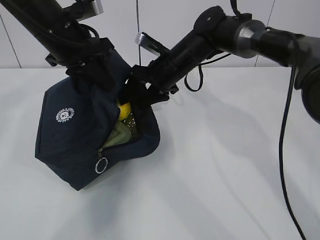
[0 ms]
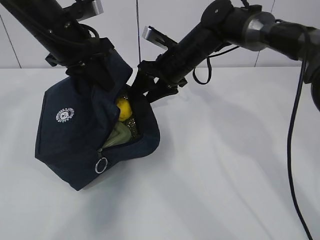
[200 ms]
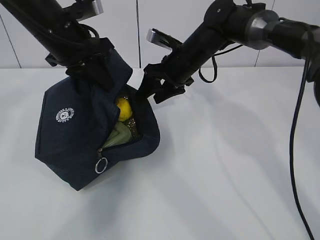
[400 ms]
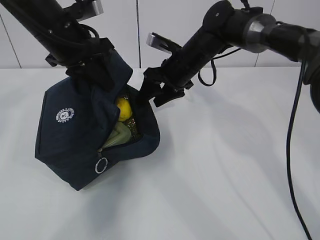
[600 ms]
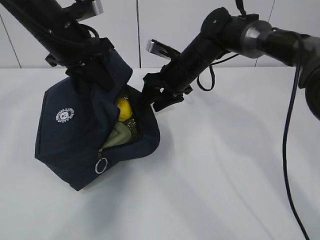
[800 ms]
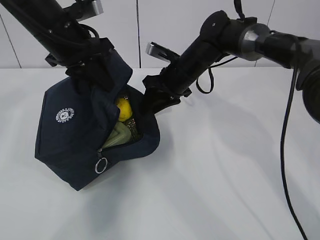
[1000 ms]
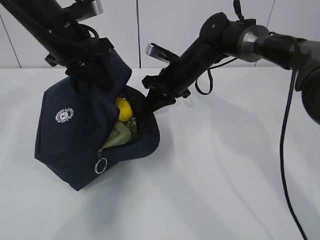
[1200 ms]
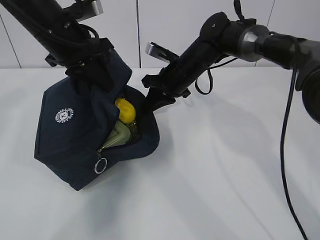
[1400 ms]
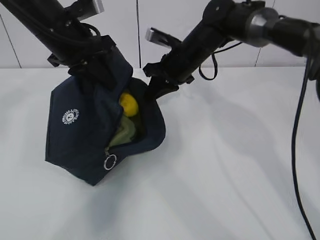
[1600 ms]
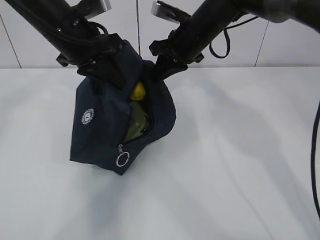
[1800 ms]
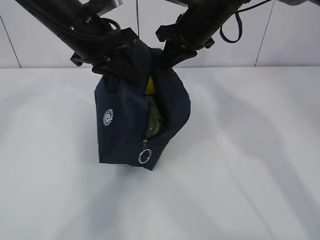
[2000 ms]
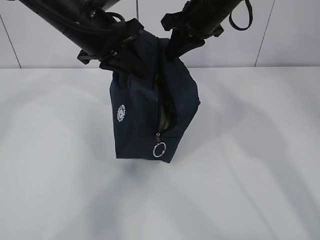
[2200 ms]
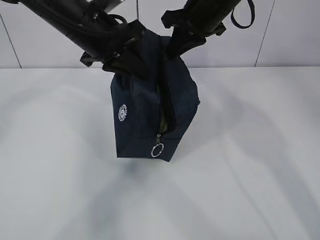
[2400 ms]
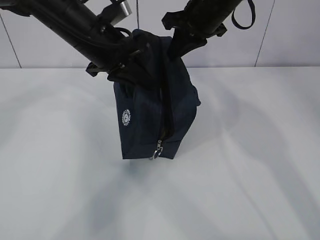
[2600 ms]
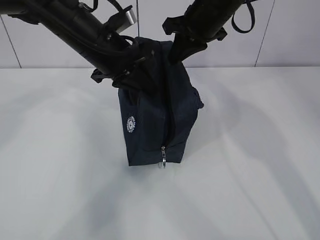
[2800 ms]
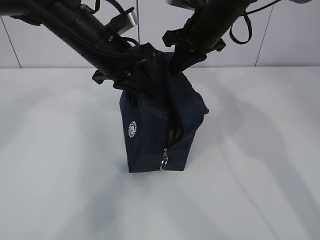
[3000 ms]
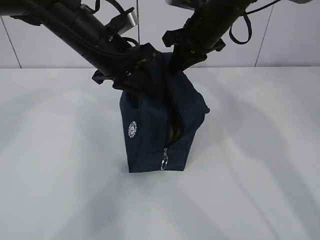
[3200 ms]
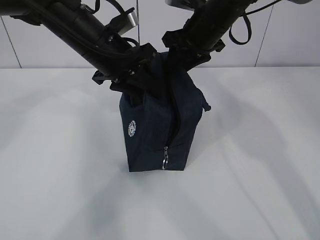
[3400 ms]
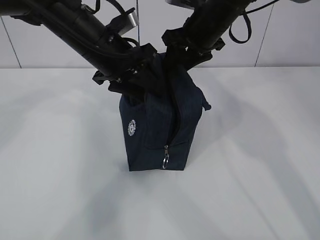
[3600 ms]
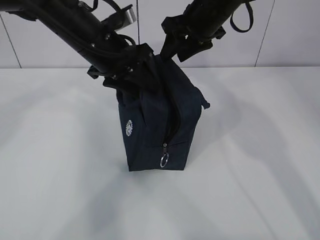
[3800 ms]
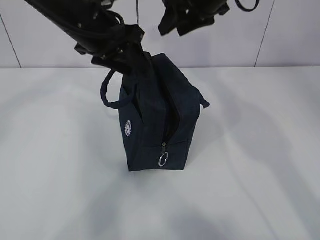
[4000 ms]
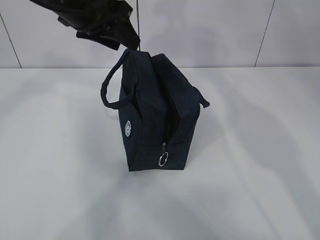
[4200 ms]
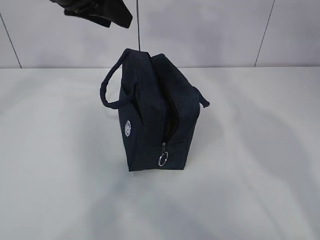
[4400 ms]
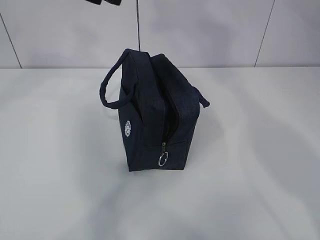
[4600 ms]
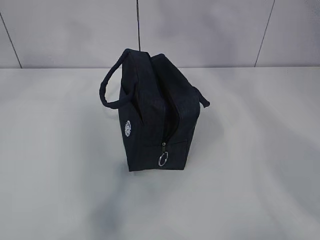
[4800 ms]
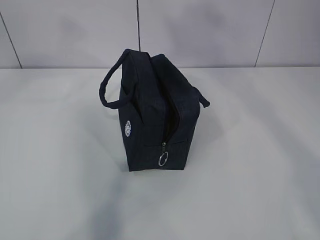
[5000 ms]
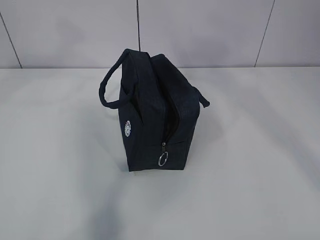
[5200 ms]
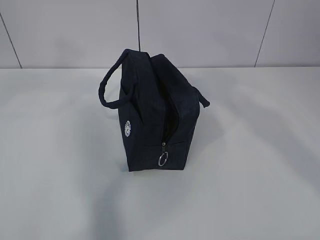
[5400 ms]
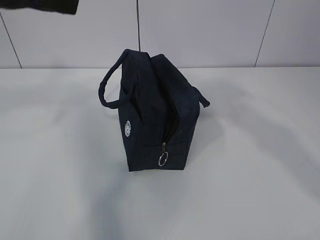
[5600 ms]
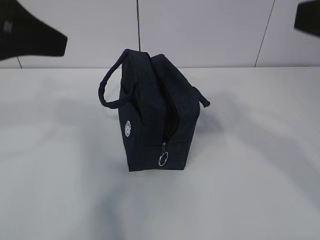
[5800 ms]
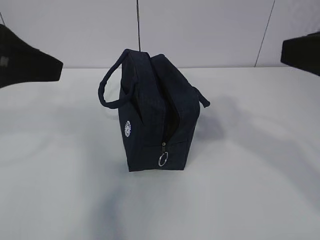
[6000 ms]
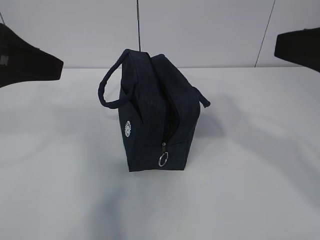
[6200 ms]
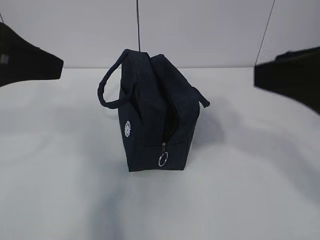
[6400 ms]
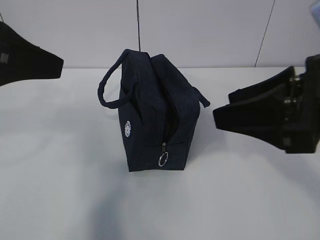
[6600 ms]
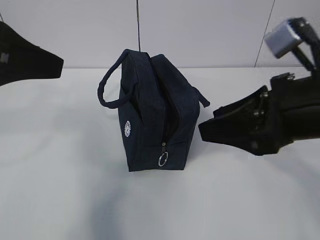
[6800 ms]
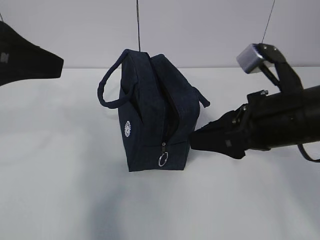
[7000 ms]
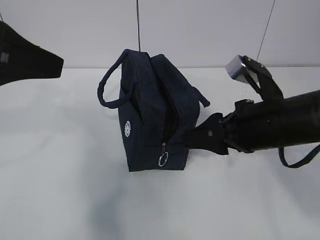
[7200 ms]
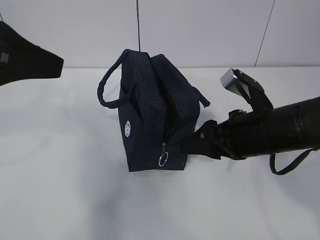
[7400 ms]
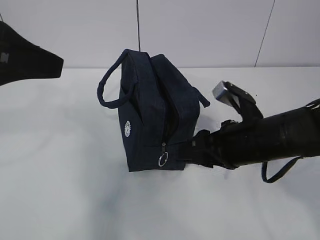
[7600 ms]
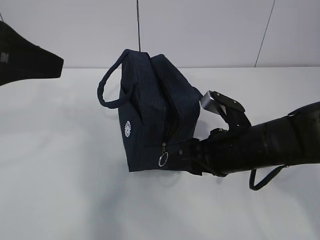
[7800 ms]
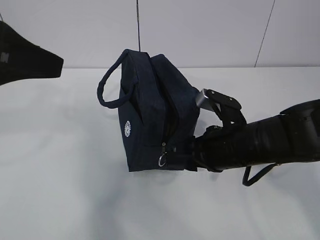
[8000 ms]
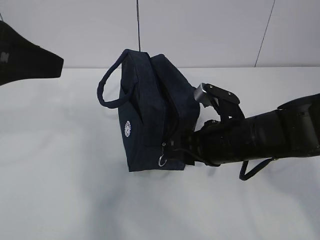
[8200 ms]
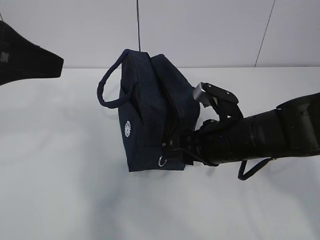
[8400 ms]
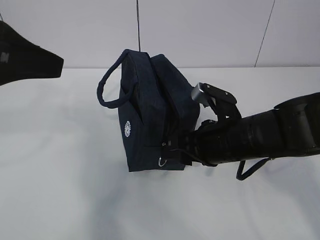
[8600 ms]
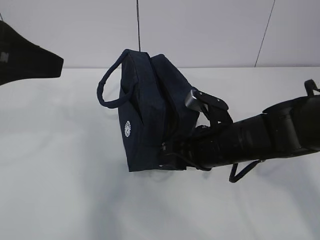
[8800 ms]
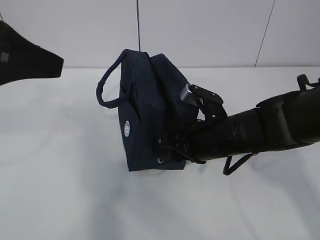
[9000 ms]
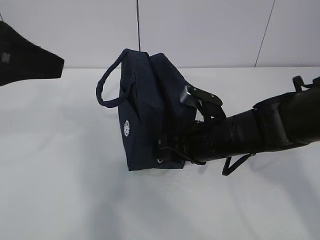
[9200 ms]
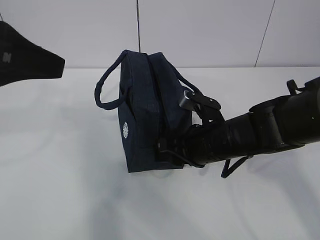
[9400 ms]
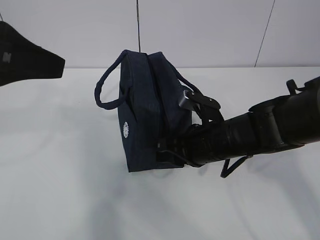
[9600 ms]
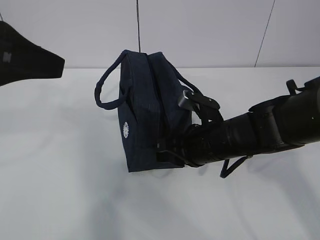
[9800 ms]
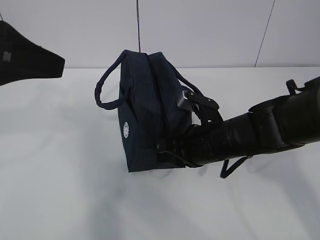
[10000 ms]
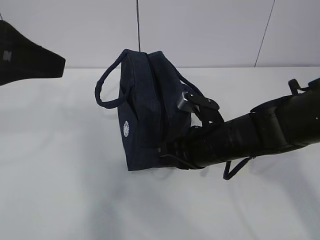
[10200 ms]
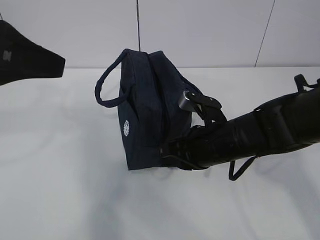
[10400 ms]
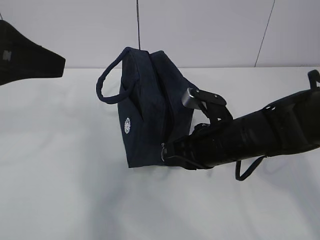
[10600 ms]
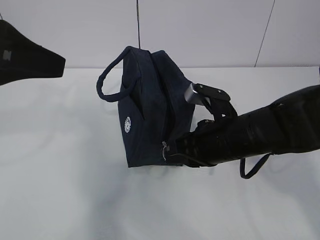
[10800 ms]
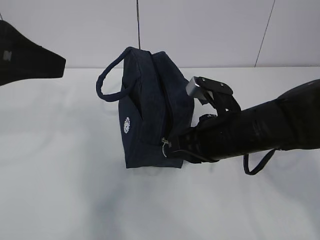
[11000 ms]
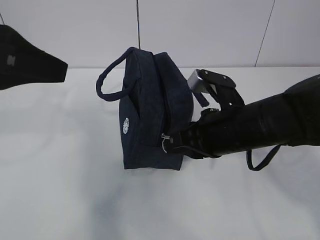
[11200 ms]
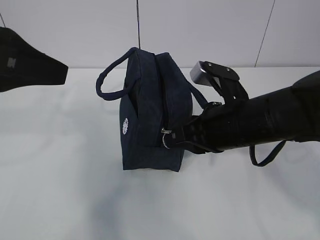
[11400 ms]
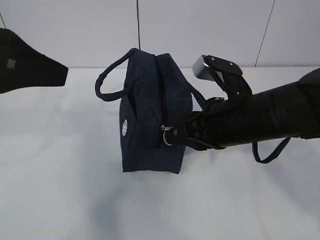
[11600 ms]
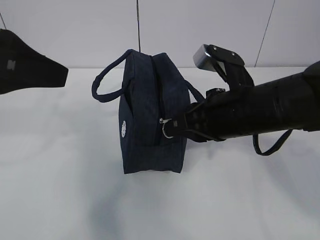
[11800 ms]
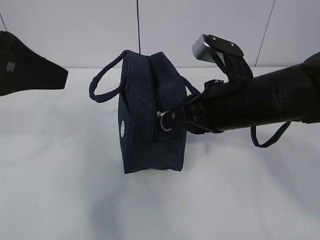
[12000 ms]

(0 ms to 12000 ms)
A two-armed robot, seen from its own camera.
Step, 0 ms - 9800 ms: Grab the lunch bag with your left hand.
0 ms - 1600 ms: The right gripper closes.
1600 ms - 3000 ms: The right gripper heads upward, covering about 5 cm. The left gripper is displaced to the right by approximately 5 cm.
3000 ms - 4400 ms: The right gripper goes approximately 20 cm upward, and opens up. Meanwhile the left gripper heads upward, covering approximately 10 cm, and opens up.
4400 ms - 6000 ms: The right gripper is displaced backward and downward by some 25 cm. Meanwhile the left gripper moves backward and to the left, some 15 cm.
6000 ms - 7600 ms: The right gripper travels downward and forward by some 20 cm.
7600 ms - 9000 ms: The right gripper moves roughly 5 cm.
9000 ms - 10400 ms: The right gripper closes its fingers.
10400 ms - 12000 ms: The right gripper goes about 10 cm upward.

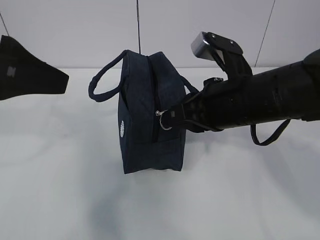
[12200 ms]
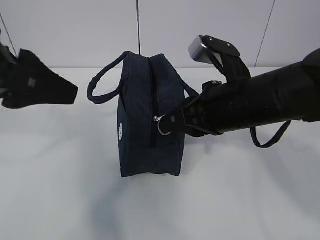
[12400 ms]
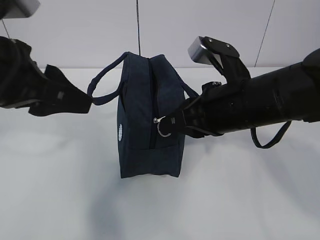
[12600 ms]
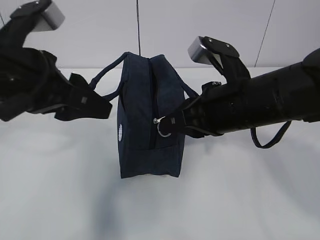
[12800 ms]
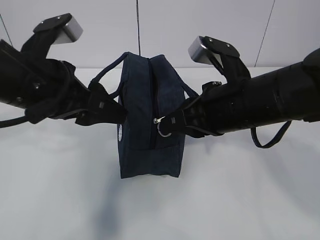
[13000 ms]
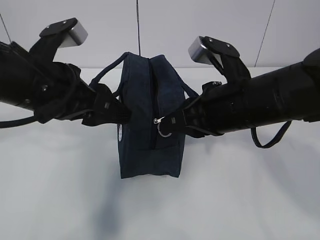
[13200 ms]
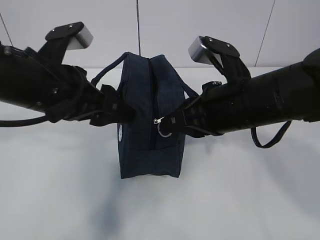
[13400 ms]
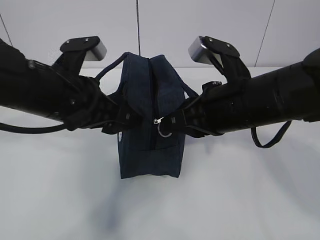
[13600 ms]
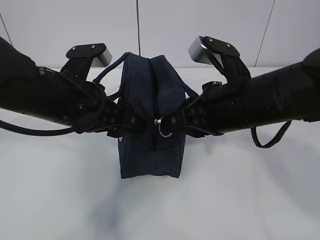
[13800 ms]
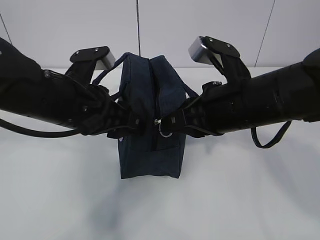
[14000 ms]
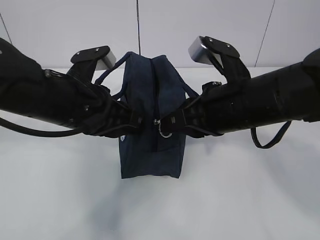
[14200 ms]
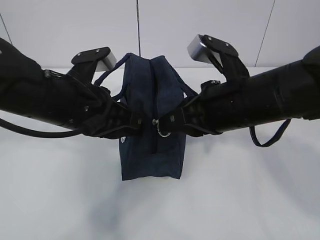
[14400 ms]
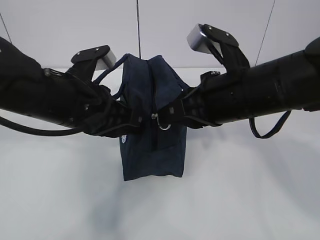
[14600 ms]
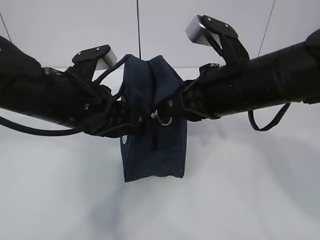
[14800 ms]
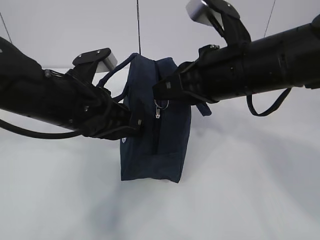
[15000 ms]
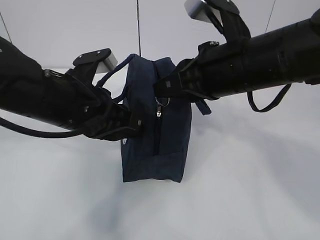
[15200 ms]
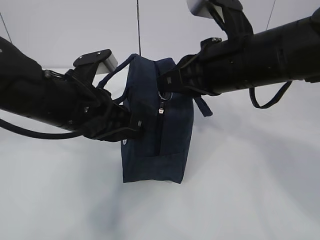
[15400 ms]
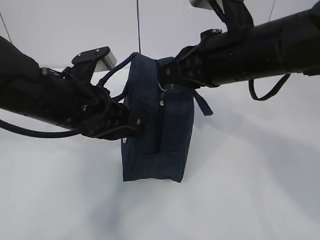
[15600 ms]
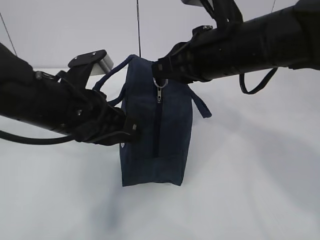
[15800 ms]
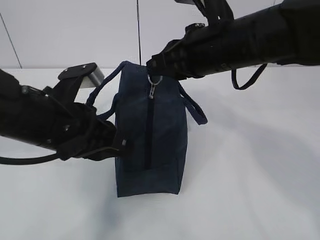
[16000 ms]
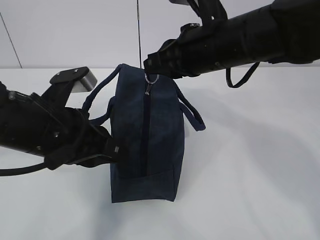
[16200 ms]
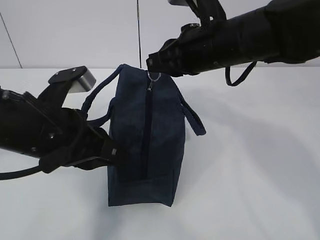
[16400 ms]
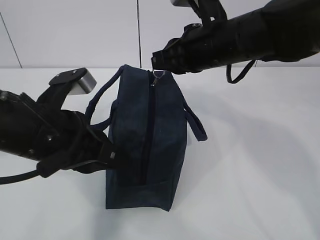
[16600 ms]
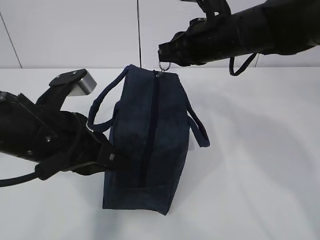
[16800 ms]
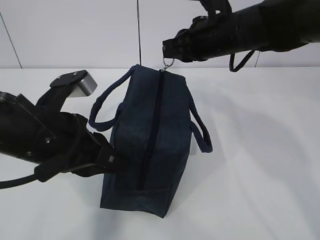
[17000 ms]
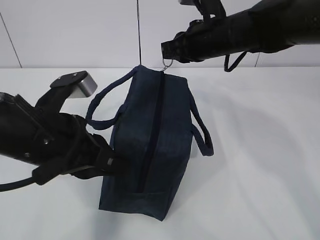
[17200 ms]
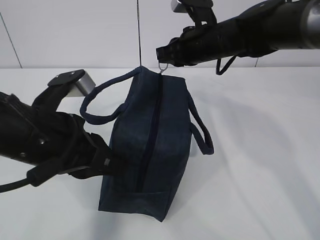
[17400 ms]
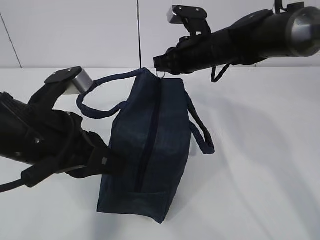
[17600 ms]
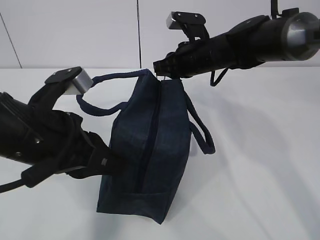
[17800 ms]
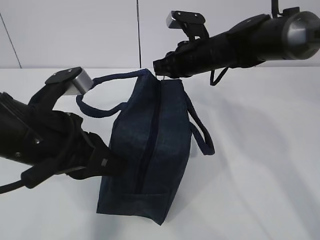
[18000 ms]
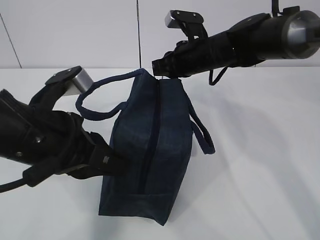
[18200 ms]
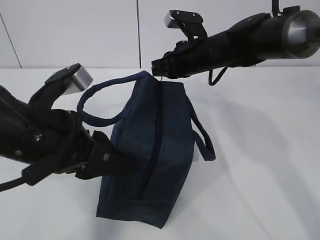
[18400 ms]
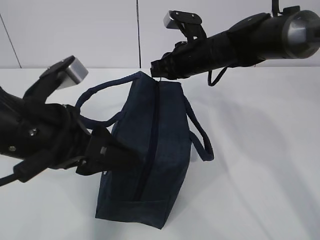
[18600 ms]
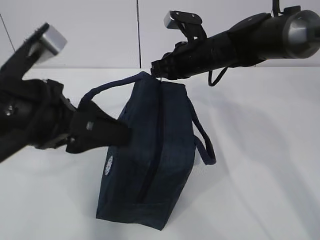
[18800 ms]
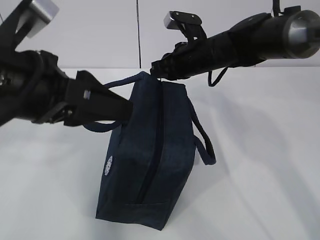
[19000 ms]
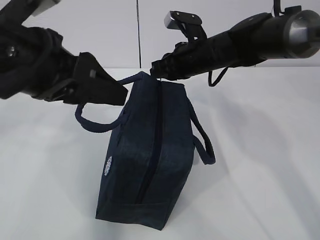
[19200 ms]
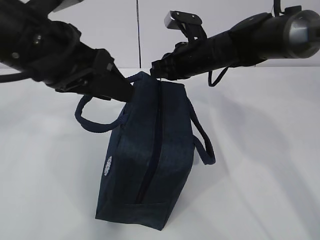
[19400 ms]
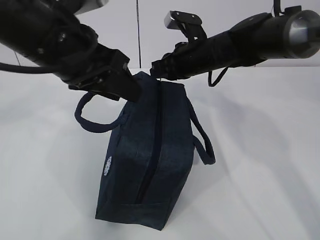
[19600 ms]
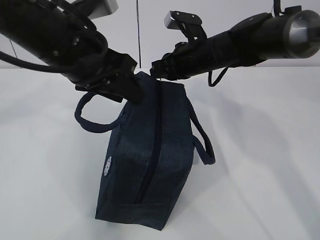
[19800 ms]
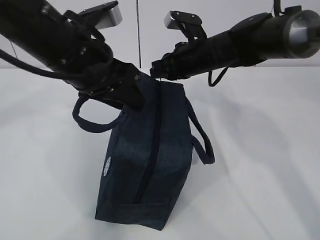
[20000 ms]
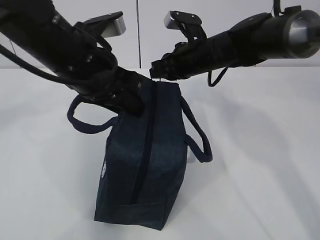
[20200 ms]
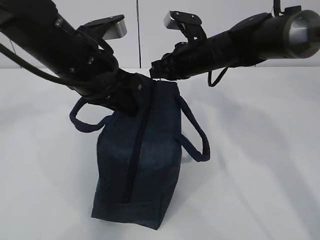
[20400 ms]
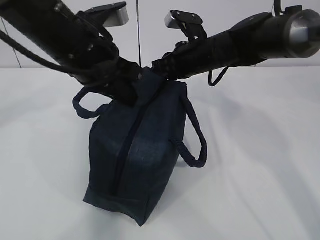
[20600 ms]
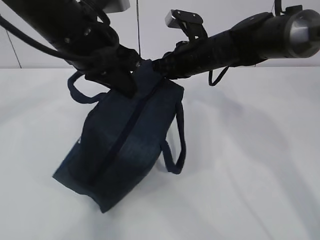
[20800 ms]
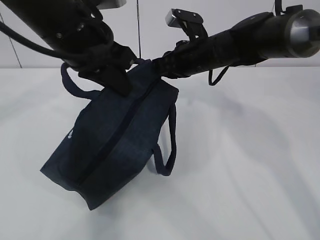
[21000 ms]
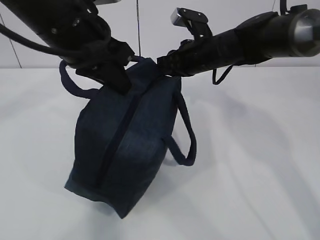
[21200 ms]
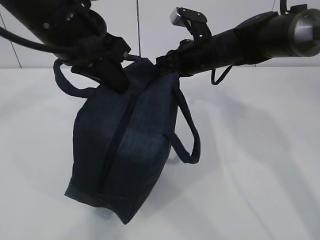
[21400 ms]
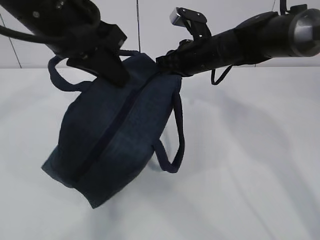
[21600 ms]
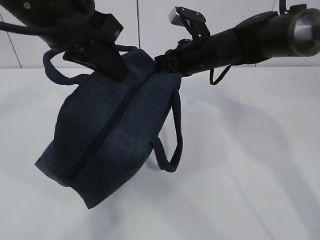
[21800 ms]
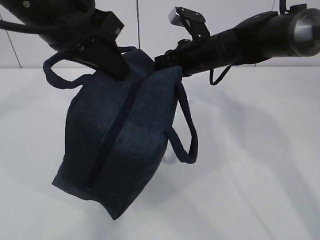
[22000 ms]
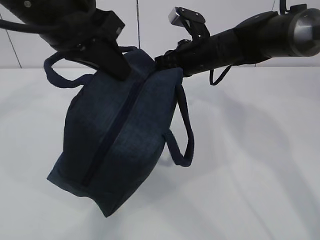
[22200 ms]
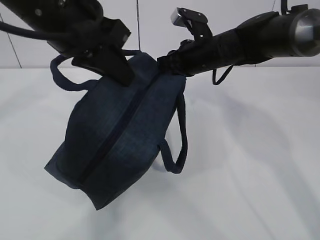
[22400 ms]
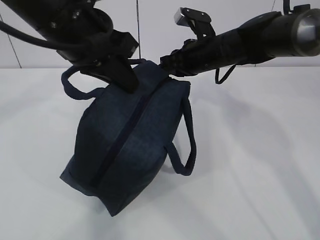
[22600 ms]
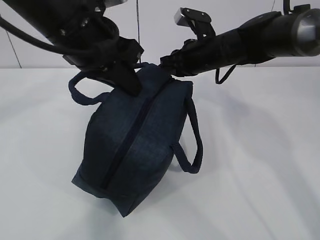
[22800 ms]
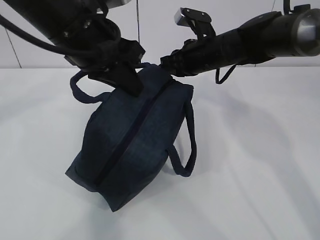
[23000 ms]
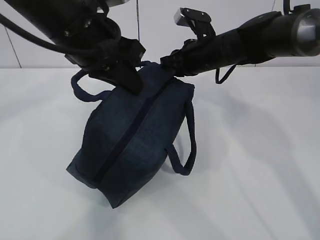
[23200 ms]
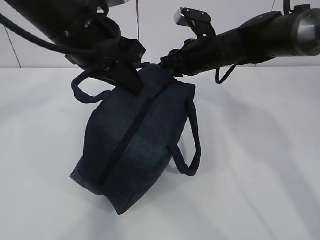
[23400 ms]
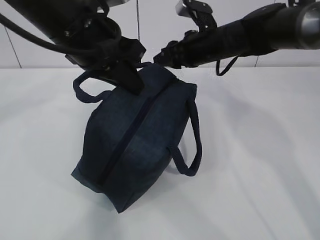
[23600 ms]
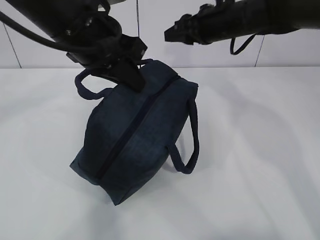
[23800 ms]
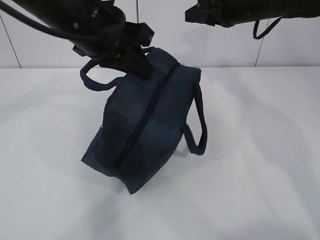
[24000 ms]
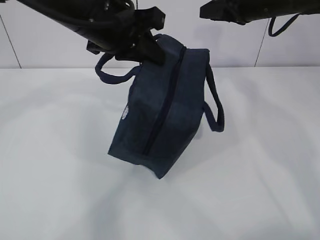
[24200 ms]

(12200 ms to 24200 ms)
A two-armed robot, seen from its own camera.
Step, 13200 ms - 15400 ms: Grab the lunch bag with your left hand.
12200 ms - 13800 ms: The left gripper goes roughly 15 cm downward, forward and to the right.
13800 ms - 15200 ms: The left gripper closes.
15200 ms - 16600 ms: The right gripper moves forward, about 10 cm. Meanwhile the left gripper shifts by about 5 cm.
16600 ms - 18200 ms: The right gripper travels forward and downward by approximately 10 cm.
18200 ms - 19800 ms: The left gripper is displaced forward and upward by about 10 cm, and opens up.
19800 ms - 21200 ms: The left gripper closes its fingers.
21200 ms - 22600 ms: The grippers stay close to where they were, moving slightly.
22600 ms - 24200 ms: The right gripper is displaced upward and to the right by some 15 cm, and opens.
